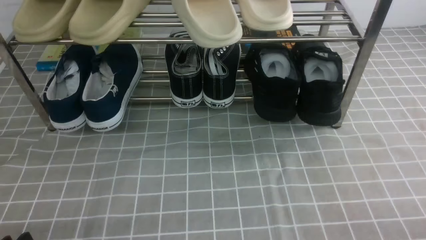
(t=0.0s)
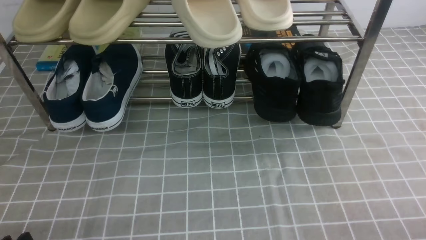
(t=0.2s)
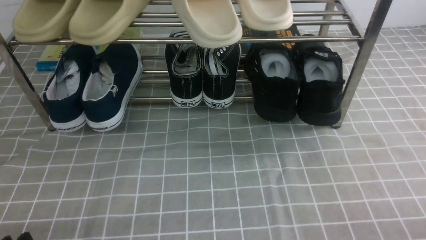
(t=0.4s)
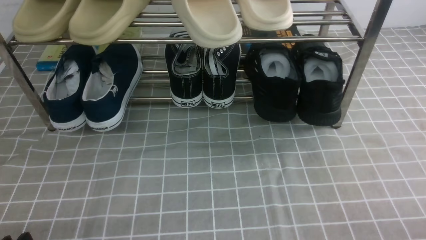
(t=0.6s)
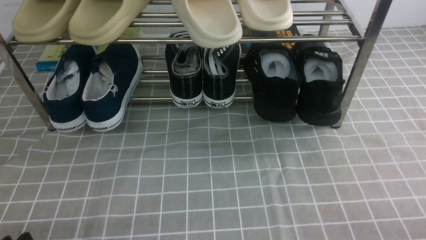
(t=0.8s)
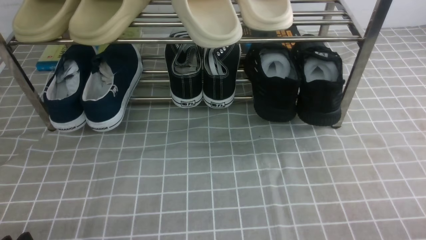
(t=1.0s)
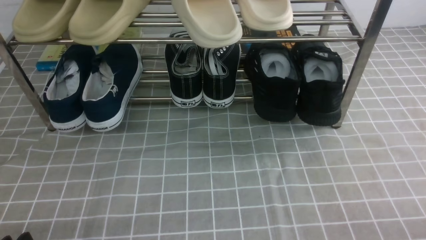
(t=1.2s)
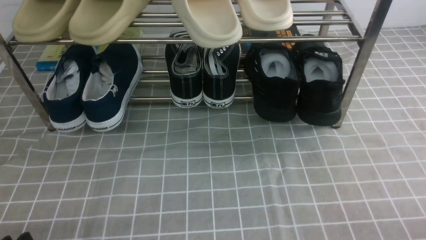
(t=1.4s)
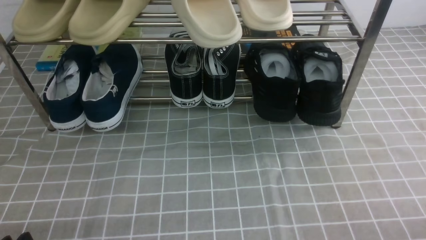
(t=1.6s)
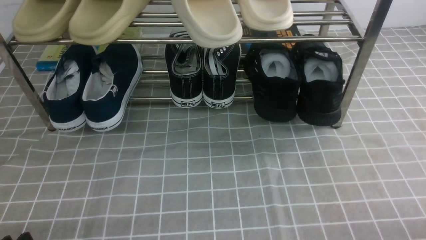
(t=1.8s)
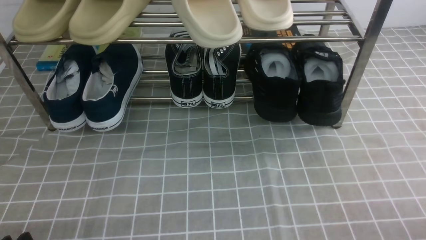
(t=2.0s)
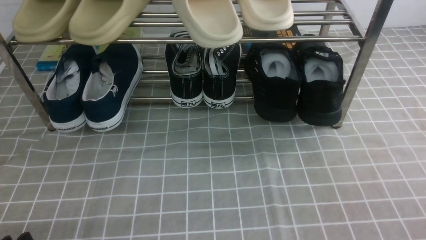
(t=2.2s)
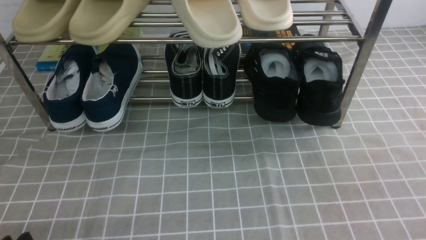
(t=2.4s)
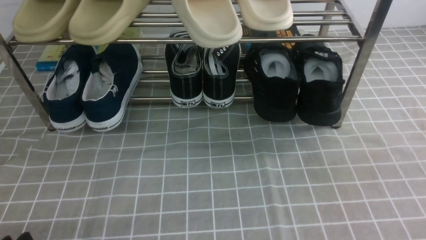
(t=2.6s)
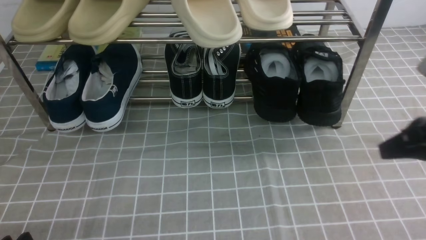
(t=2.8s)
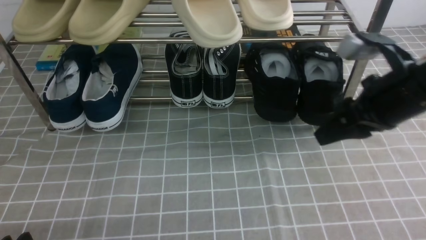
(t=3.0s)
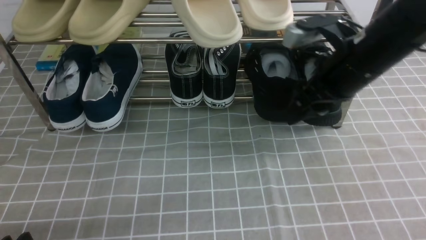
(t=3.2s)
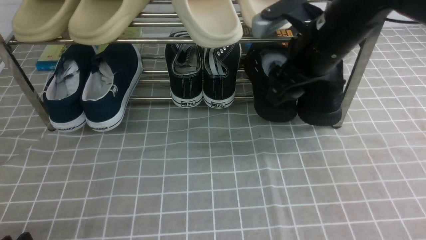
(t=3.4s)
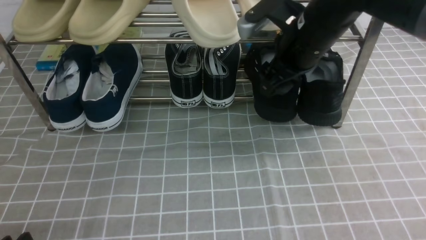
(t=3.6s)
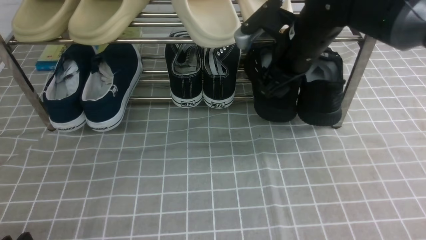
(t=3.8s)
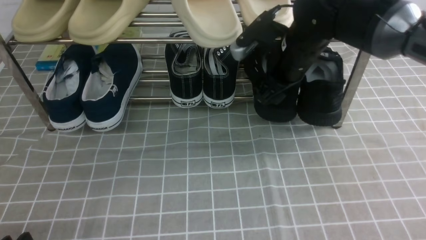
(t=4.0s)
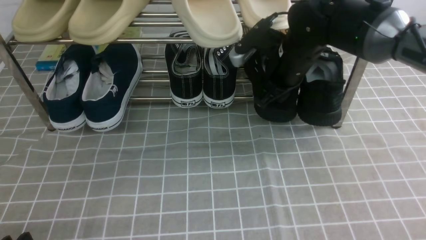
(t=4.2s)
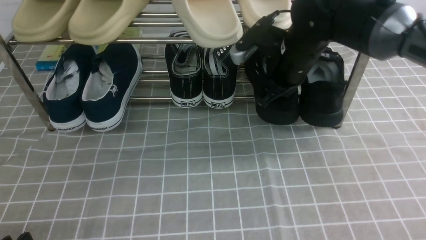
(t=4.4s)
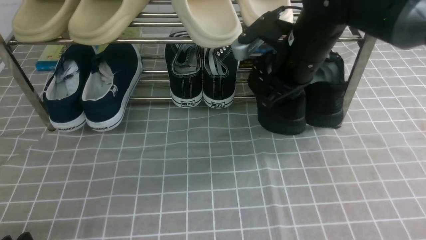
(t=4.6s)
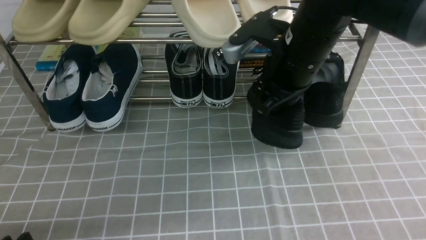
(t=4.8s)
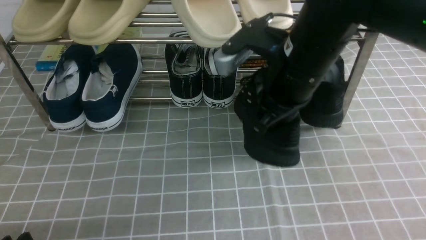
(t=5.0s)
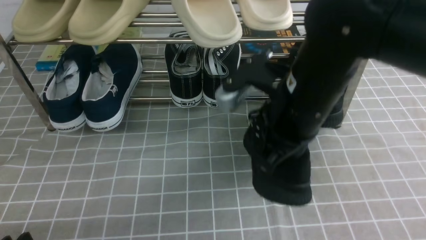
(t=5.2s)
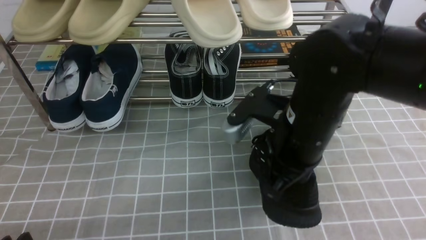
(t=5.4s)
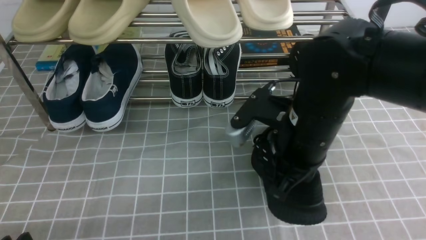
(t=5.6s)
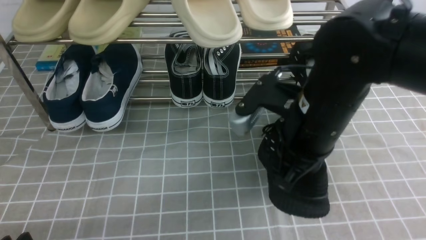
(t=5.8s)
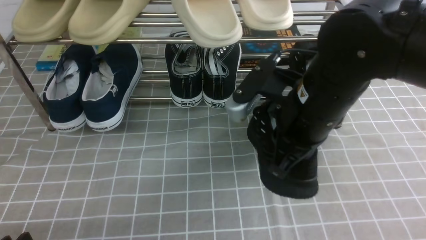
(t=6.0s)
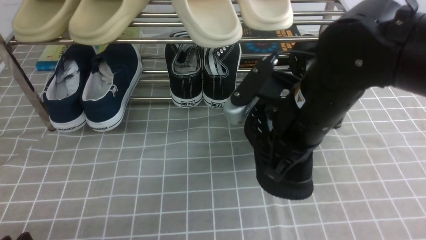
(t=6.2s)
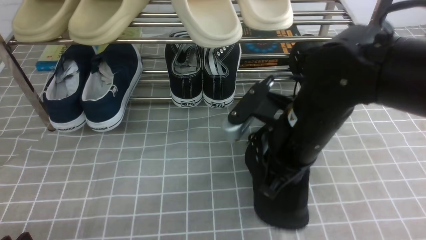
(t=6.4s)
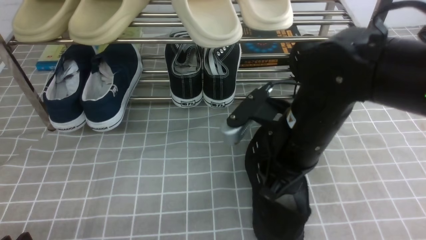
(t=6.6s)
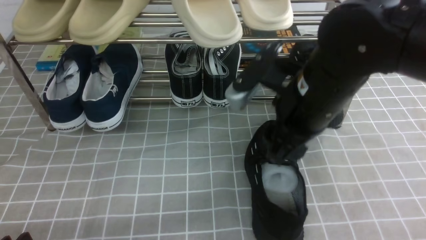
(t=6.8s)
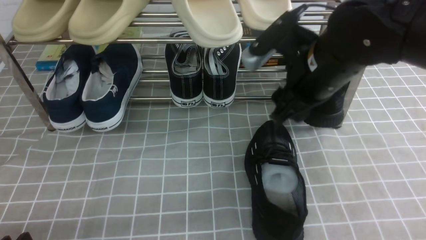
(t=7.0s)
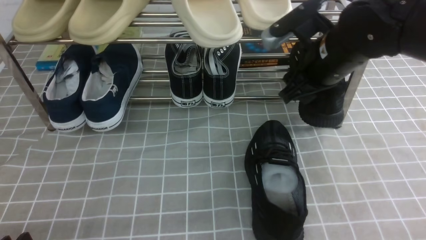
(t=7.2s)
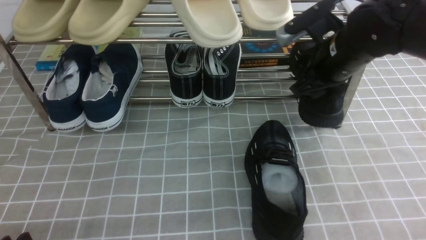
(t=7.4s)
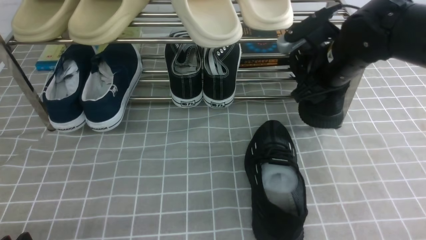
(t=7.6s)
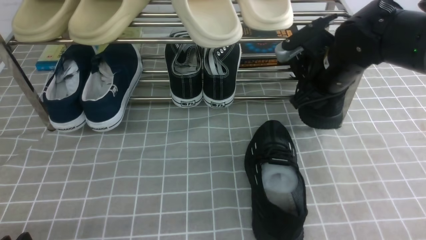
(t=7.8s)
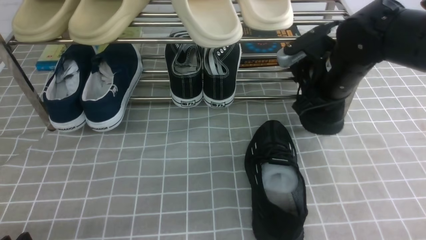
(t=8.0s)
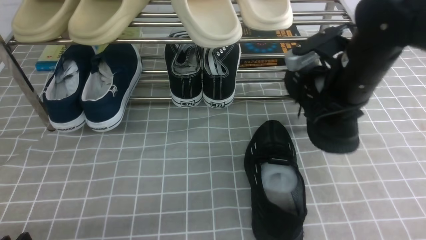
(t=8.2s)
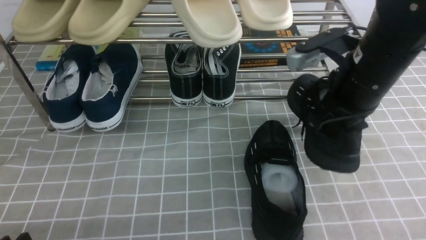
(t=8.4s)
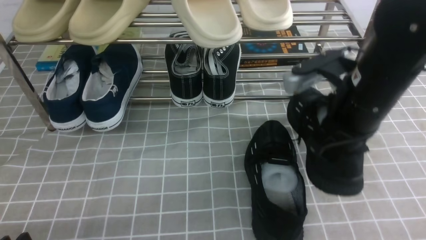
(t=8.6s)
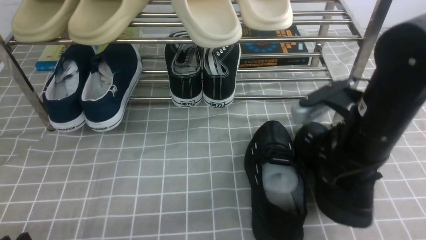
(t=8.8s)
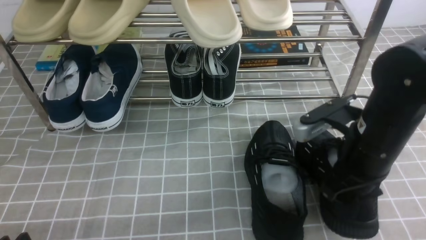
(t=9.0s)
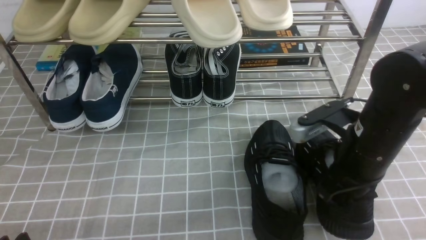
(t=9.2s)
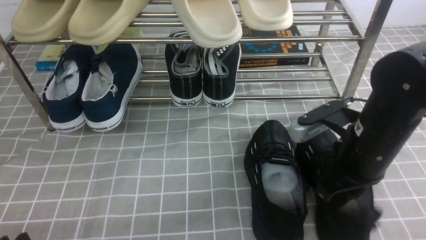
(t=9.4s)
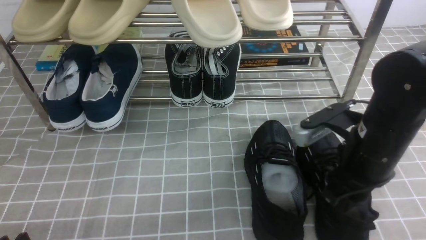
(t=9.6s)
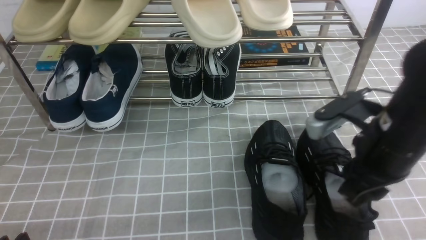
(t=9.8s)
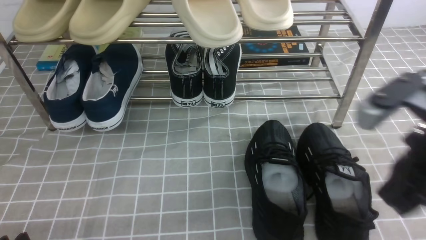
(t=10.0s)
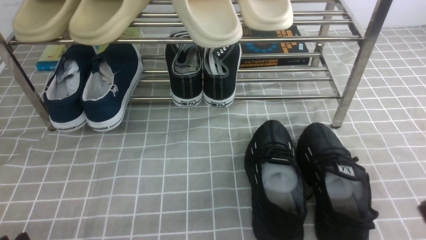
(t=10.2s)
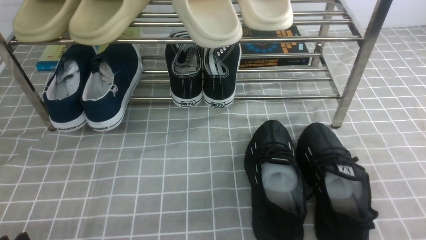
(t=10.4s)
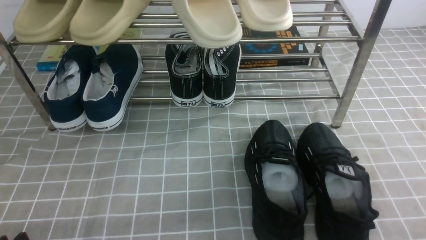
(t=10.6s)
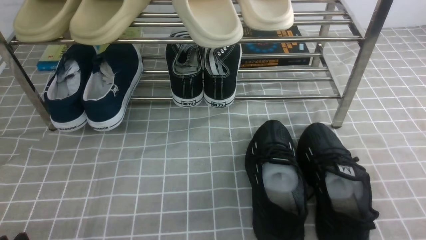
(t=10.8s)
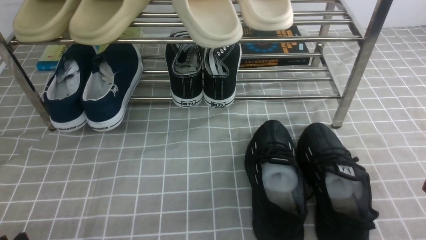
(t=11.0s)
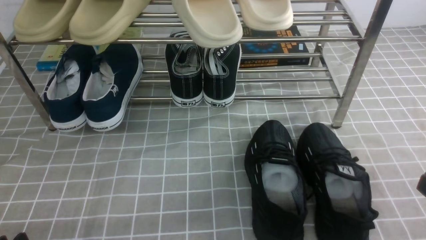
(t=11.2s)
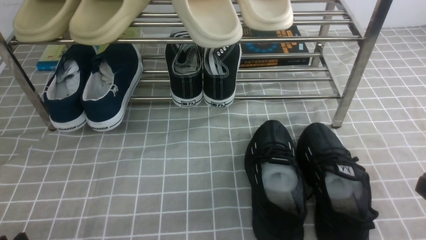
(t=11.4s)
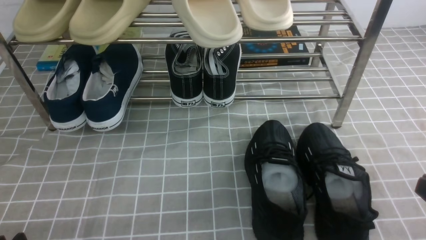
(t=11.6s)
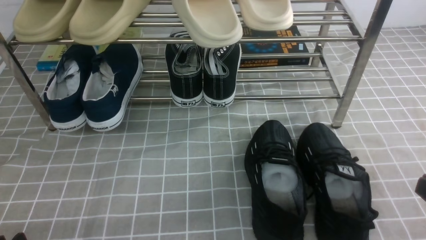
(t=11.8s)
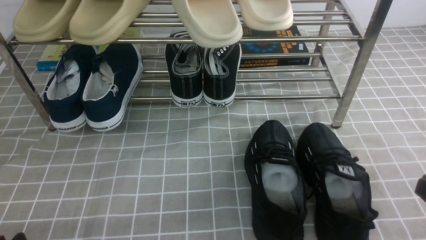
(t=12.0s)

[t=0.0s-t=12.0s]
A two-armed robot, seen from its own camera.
Step, t=0.0s to t=4.2s: use the right arm to clamp a shoe on the right side of the shoe rack.
Step, t=4.6s to t=6.8s: use the right arm to take out the clamped shoe from the shoe rack and put it down.
Step, t=7.0s to t=7.4s: use the right arm to clamp a shoe on the right side of the shoe rack.
Step, t=7.6s to t=9.8s: use the right arm to take out the clamped shoe from the shoe rack and put it down.
t=1.6s to t=3.0s: The right gripper shifts some 25 cm forward and upward.
t=3.0s to t=4.4s: The right gripper heads forward and to the left, covering some 20 cm, and opens, then closes again.
t=4.4s to t=6.0s: The right gripper heads backward, covering roughly 15 cm.
t=6.0s to t=7.6s: The right gripper shifts roughly 15 cm forward and to the right, and opens its fingers.
t=7.6s to t=9.0s: The right gripper heads backward, covering roughly 10 cm, and closes up.
t=9.0s to t=10.4s: The right gripper goes roughly 20 cm backward and to the right, and opens, then closes again.

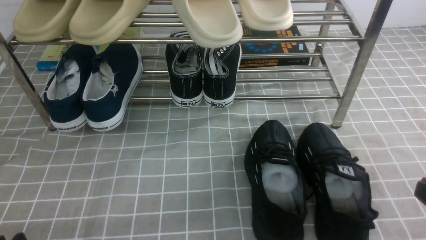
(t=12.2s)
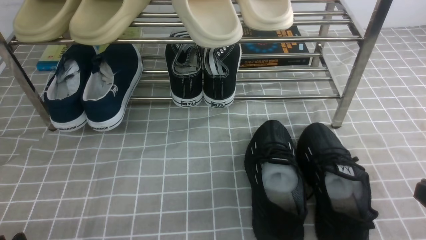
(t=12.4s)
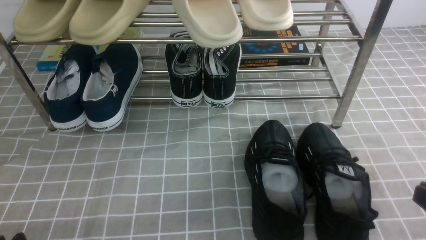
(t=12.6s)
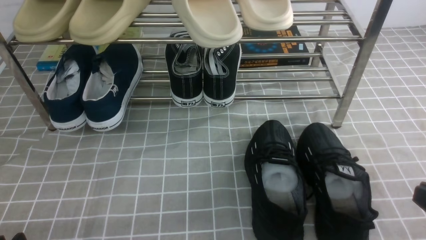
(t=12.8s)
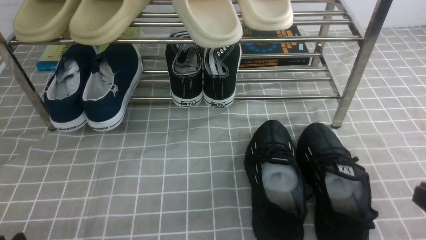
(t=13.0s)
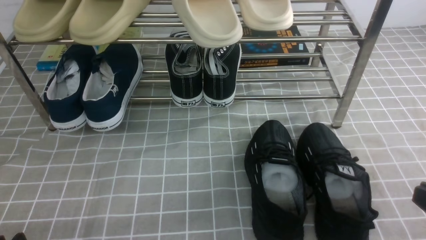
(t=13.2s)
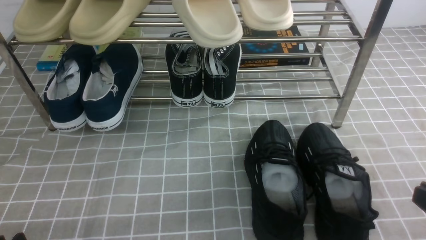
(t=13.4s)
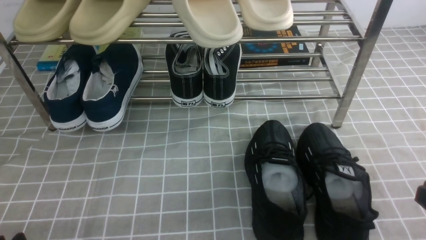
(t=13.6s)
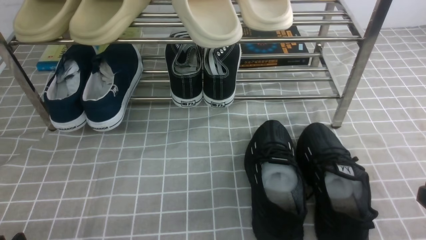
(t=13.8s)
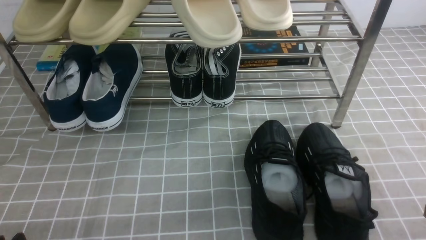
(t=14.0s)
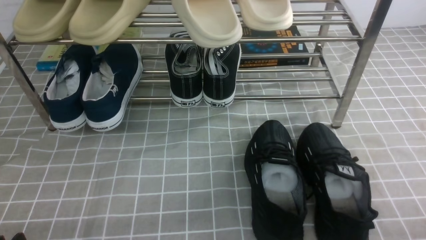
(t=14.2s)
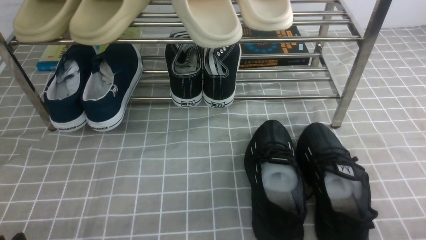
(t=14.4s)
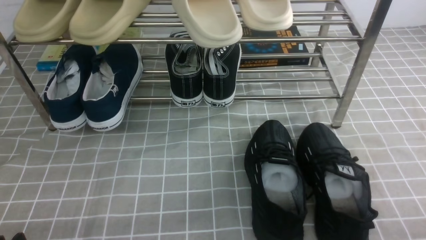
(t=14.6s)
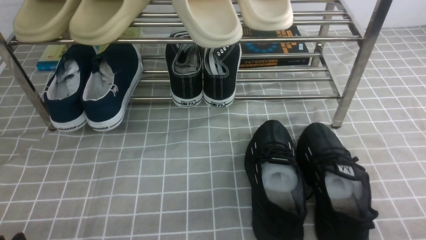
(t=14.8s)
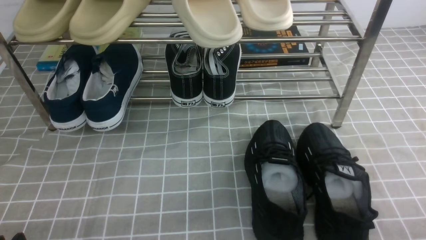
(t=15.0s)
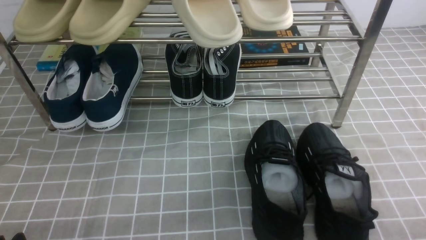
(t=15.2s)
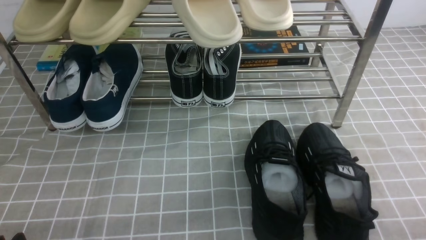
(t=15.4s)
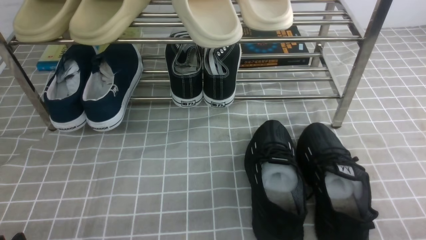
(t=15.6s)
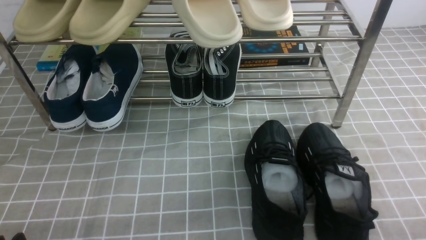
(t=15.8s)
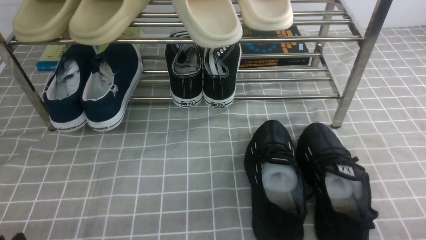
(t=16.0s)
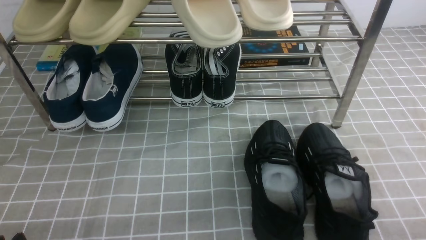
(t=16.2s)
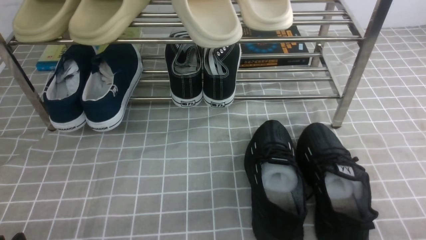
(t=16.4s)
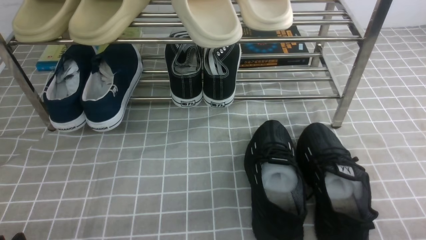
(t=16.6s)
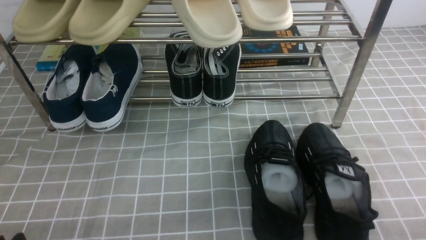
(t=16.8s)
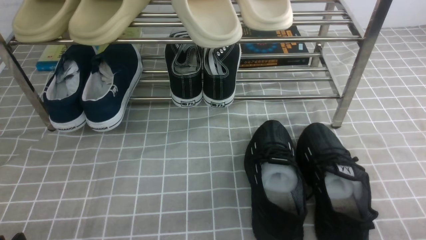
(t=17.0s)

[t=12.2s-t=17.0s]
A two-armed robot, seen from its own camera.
t=12.2s to t=13.8s: Both grippers stay about where they are.
t=15.4s to t=17.0s: Both grippers stay about where they are.
